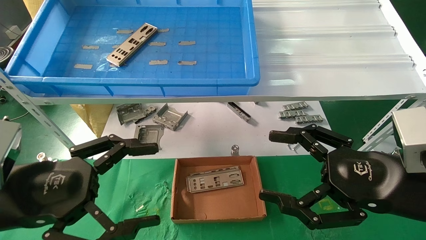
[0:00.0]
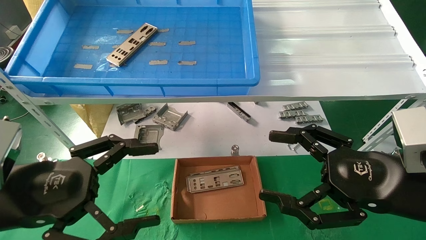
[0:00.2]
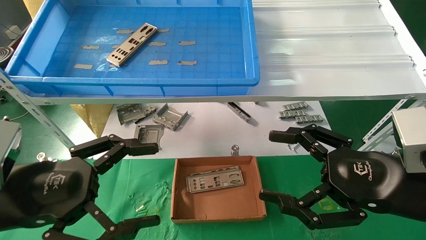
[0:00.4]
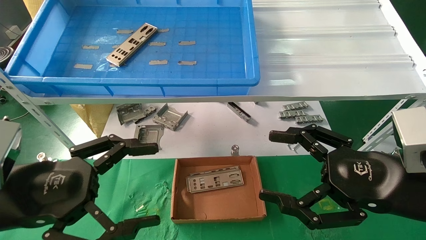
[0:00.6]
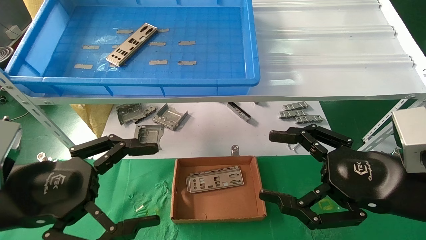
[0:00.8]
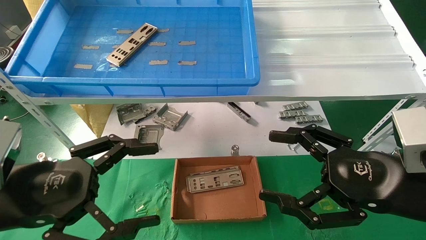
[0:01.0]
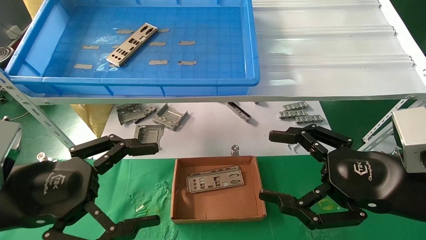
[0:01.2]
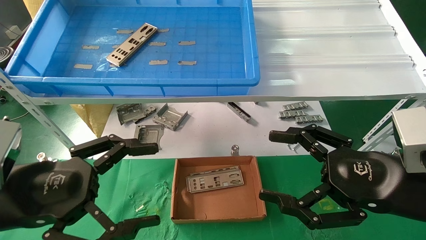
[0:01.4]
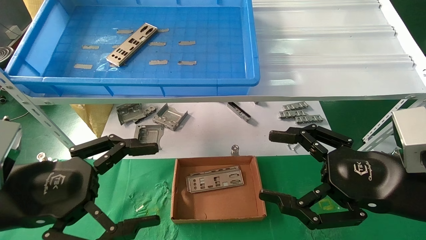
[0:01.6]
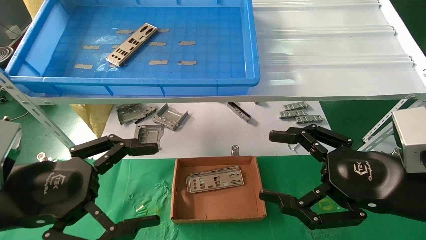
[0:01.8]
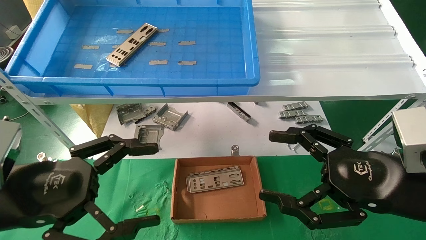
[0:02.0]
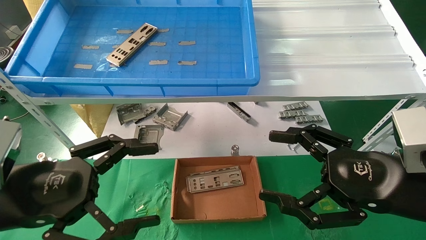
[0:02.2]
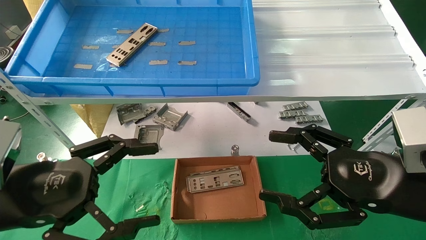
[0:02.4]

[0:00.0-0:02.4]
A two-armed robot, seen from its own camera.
Task of the whole recording: pick up the parts on the tray and put them in the cardboard box.
0:00.0 to 0:02.4: Both grippers stay about where they are.
